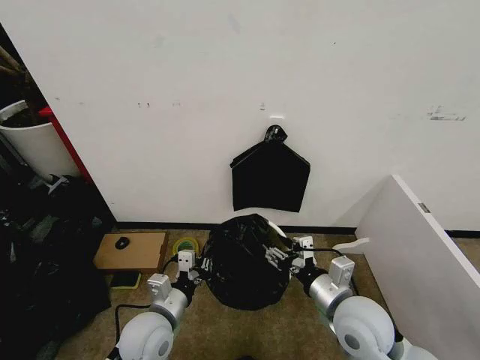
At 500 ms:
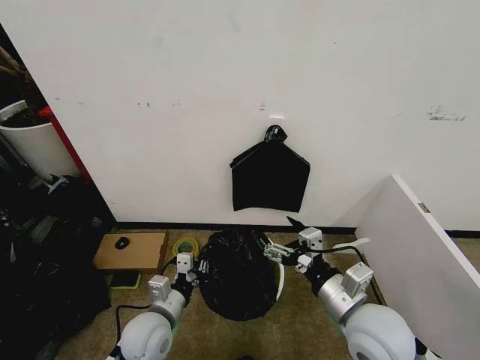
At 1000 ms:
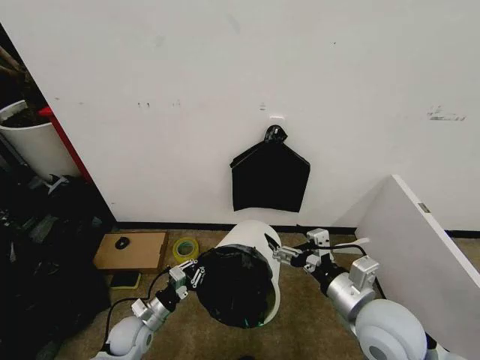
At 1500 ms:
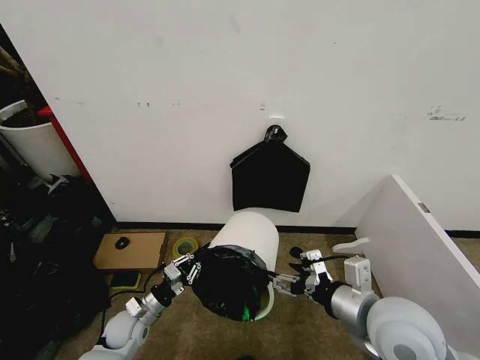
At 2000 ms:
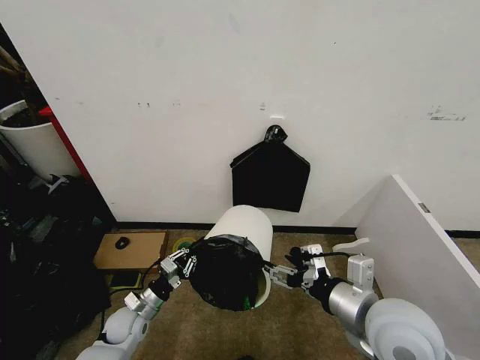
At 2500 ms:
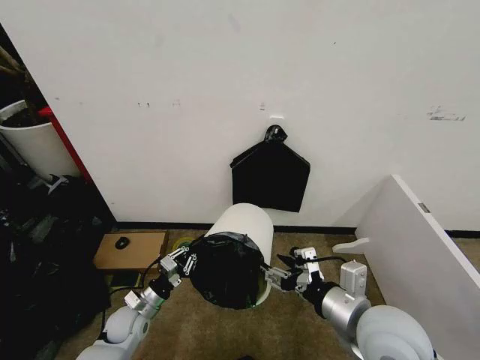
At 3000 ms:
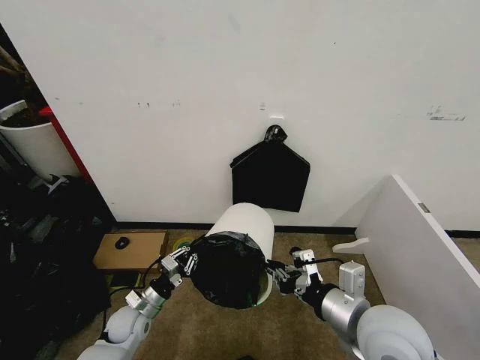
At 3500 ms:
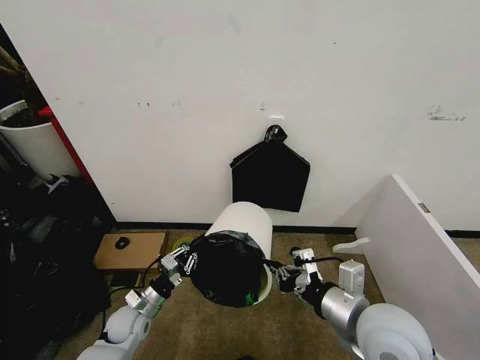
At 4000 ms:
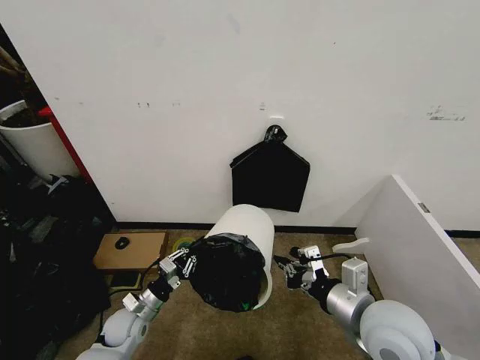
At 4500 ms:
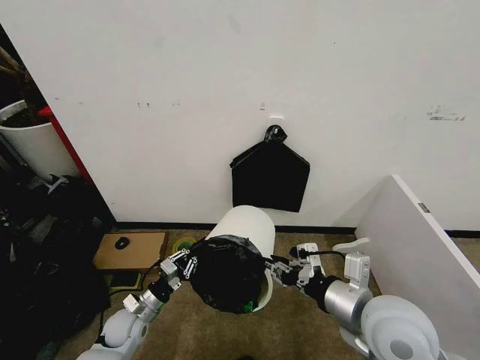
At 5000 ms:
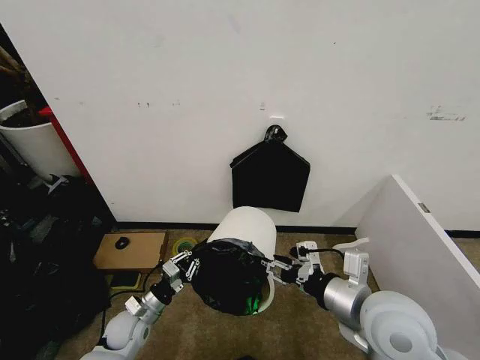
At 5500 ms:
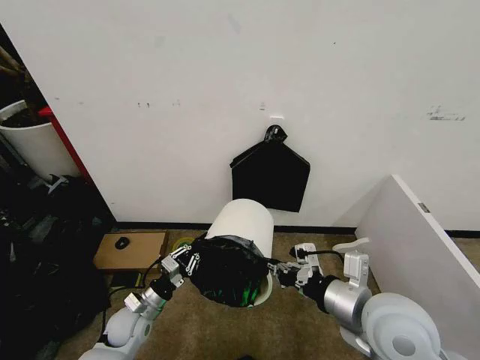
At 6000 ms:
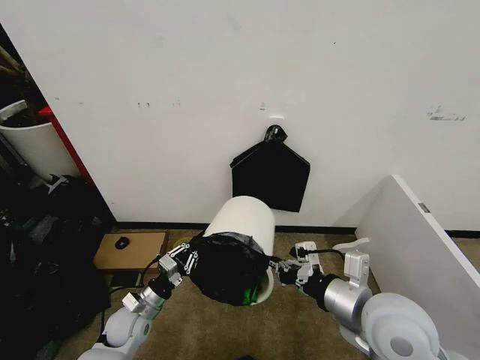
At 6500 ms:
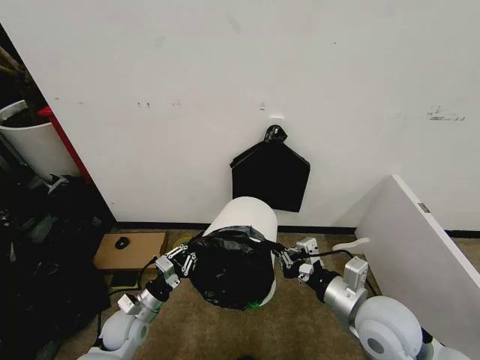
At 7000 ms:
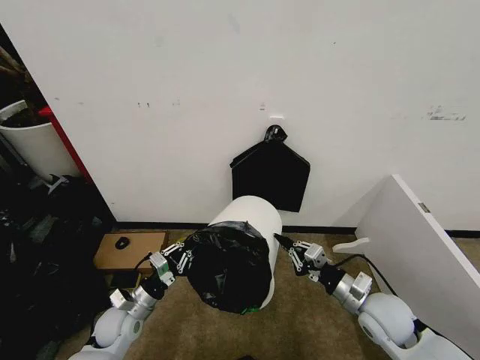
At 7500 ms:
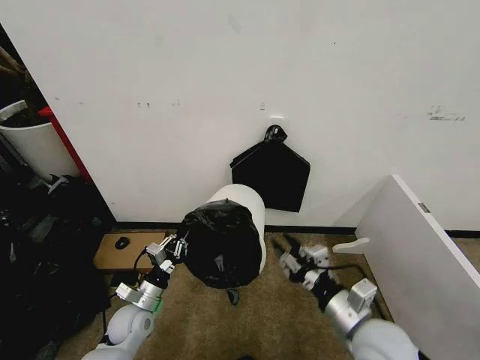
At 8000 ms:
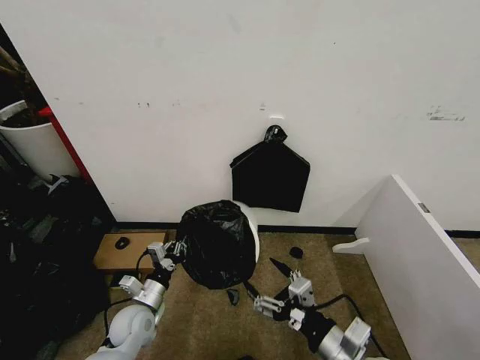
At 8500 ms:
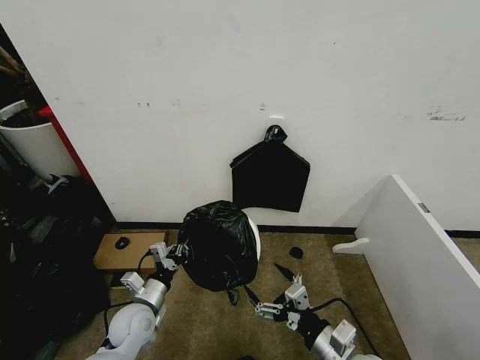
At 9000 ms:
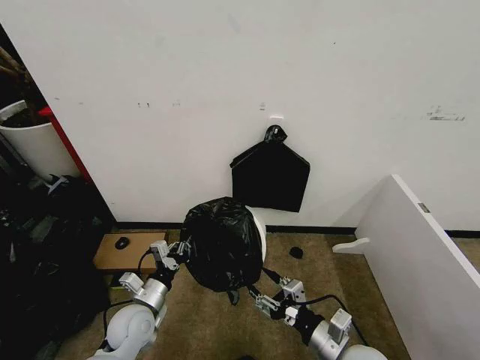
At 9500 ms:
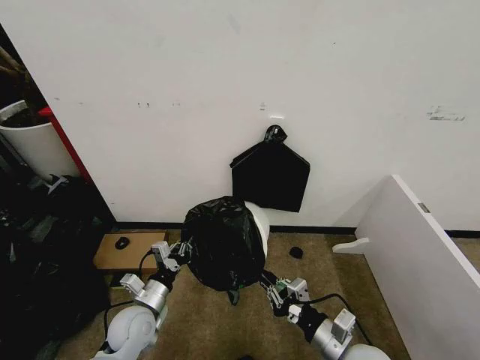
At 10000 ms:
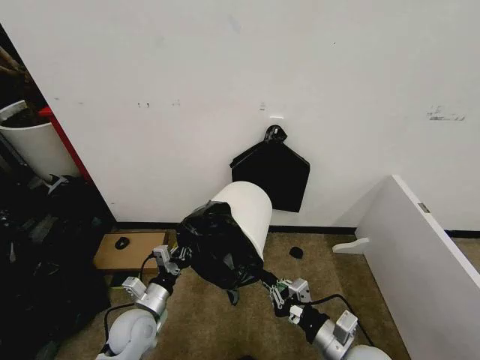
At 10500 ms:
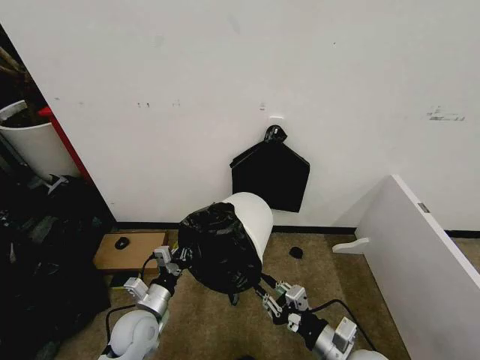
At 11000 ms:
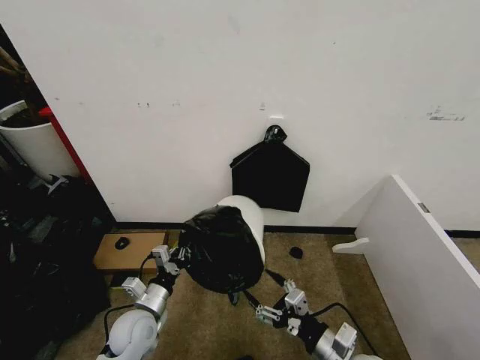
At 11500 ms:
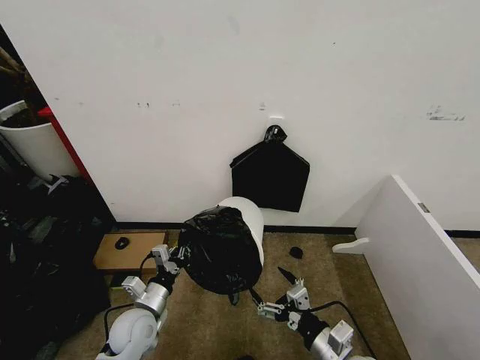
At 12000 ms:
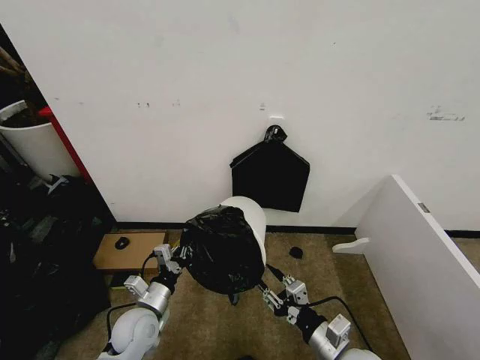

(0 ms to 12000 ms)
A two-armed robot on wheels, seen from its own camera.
Task of the whole recording: Place the garbage bag over the trash bin.
0 ms - 2000 ms: The left gripper is displaced downward, to the left and forward by some 20 cm, while the right gripper shifts approximately 10 cm upward.
2000 ms - 4000 ms: The right gripper closes its fingers.
4000 ms - 6000 ms: The right gripper opens and closes again.
6000 ms - 8000 ms: The right gripper travels backward and downward by about 10 cm, and opens.
8000 ms - 10000 ms: The right gripper travels downward by about 10 cm, and closes its fingers.
10000 ms - 12000 ms: The right gripper opens up.

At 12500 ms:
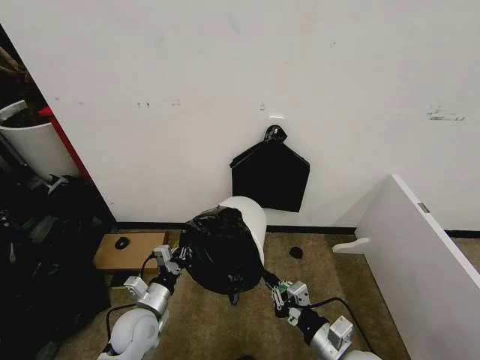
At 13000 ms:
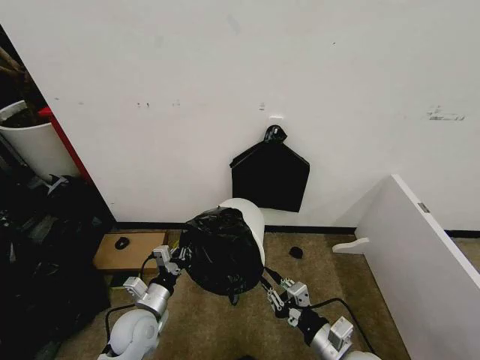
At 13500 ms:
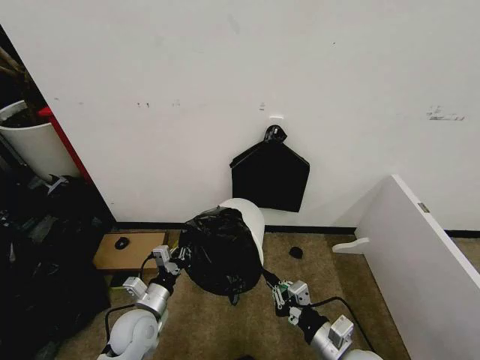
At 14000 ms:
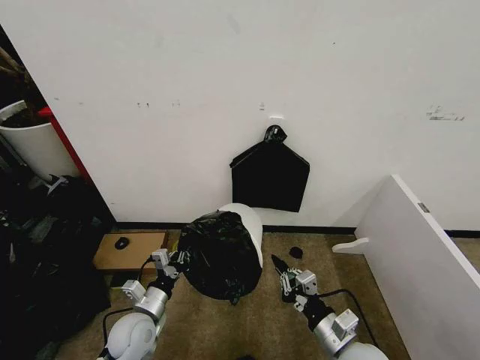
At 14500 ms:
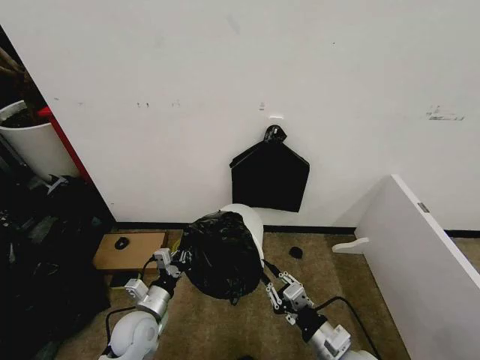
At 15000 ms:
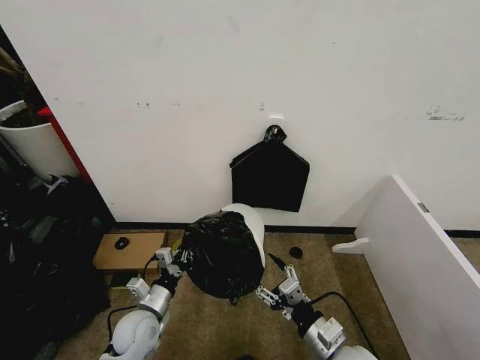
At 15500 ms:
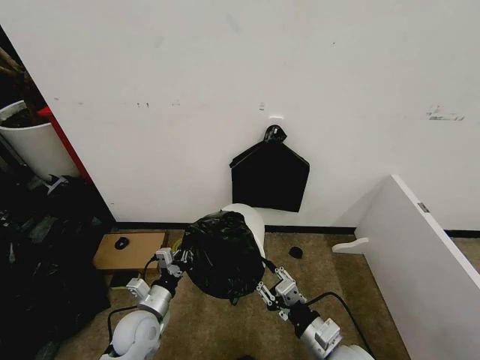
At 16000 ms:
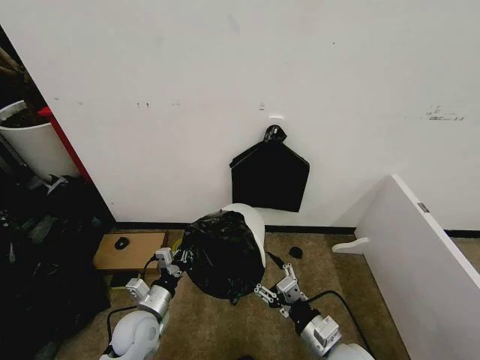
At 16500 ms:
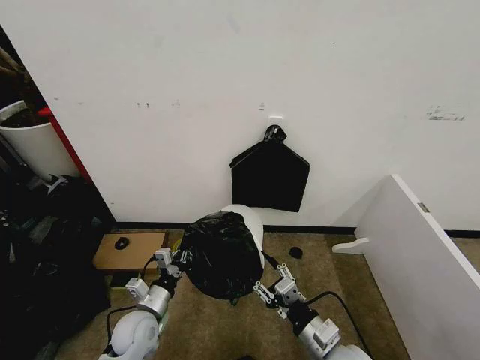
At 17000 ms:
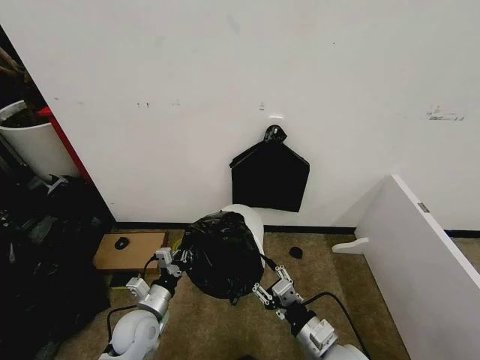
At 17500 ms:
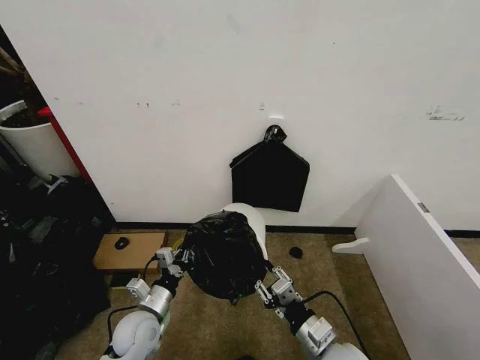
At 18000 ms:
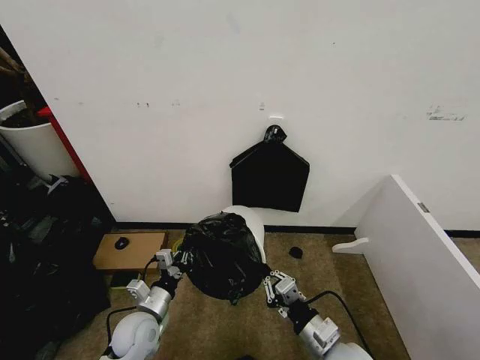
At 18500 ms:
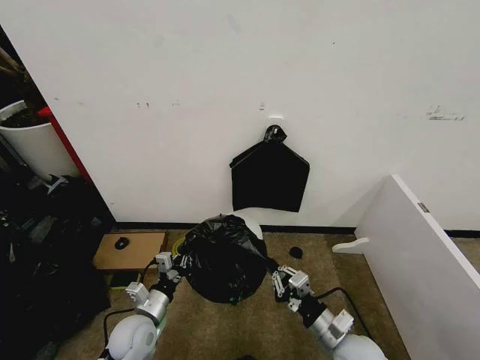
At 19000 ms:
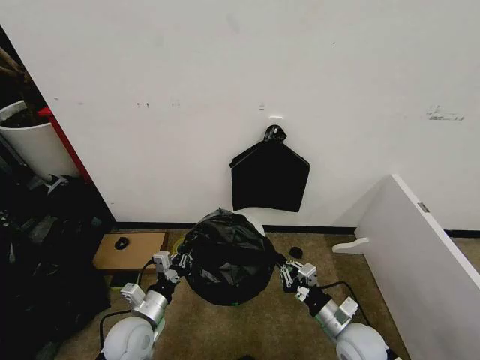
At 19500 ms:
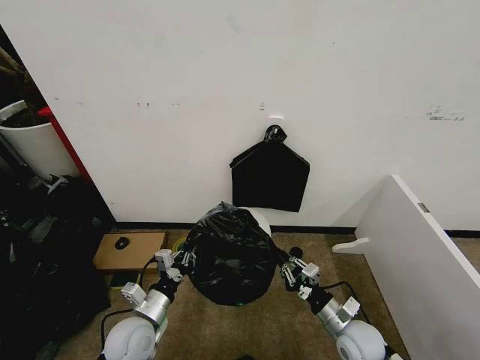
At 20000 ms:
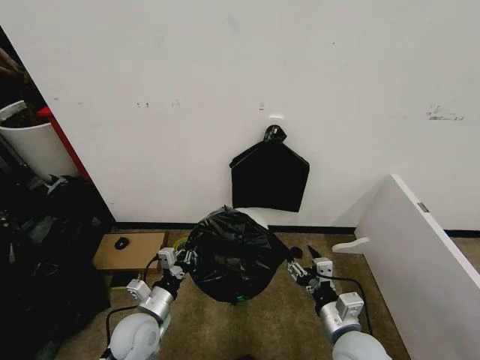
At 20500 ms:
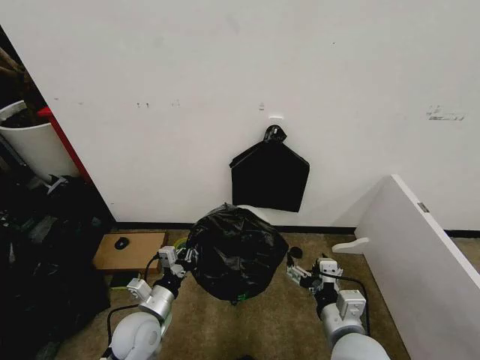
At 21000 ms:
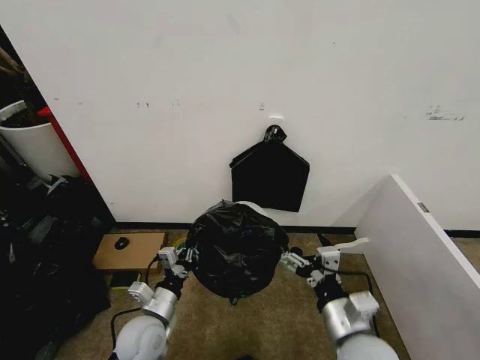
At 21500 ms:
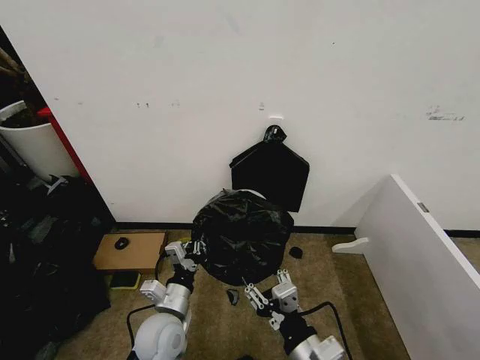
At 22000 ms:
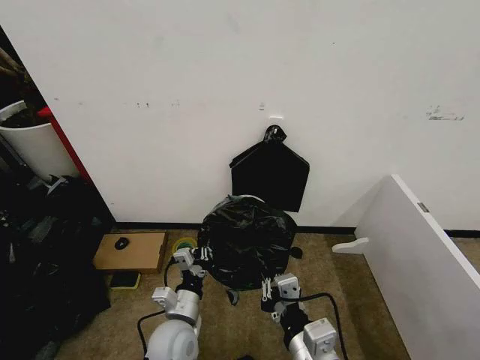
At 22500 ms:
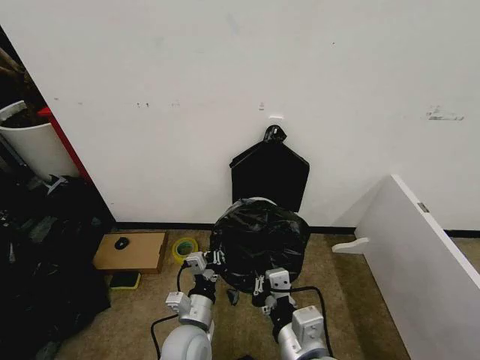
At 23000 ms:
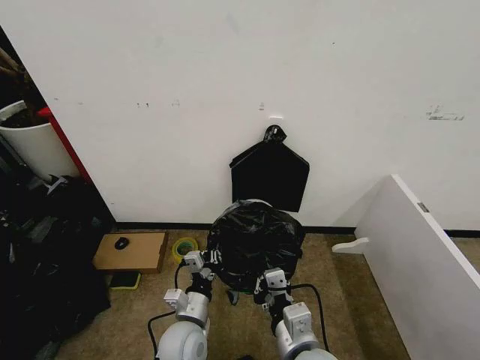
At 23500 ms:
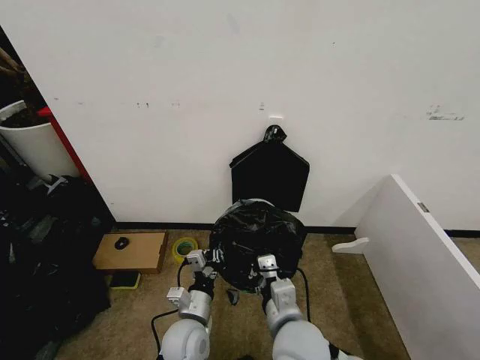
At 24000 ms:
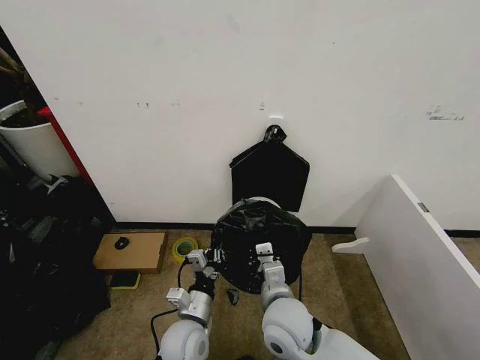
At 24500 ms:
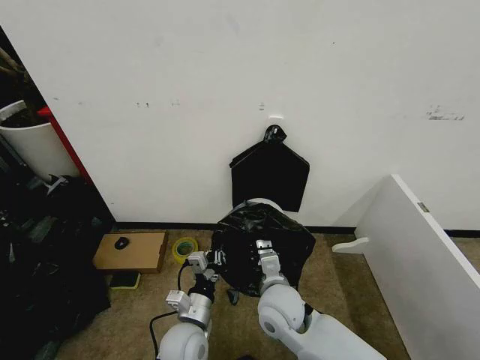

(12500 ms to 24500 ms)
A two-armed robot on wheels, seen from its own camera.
Task of the whole recording: Place the garbage bag over the trash bin.
12500 ms - 14500 ms: There are only small adjustments of the grippers.
14500 ms - 16500 ms: The right gripper opens its fingers.
16500 ms - 18500 ms: The right gripper closes its fingers.
18500 ms - 20500 ms: The right gripper is displaced upward by about 10 cm, and opens up.
20500 ms - 22500 ms: The left gripper shifts about 10 cm to the right; the right gripper moves to the left, backward and upward, some 10 cm, and closes.
22500 ms - 24500 ms: The right gripper moves forward and downward, approximately 15 cm.

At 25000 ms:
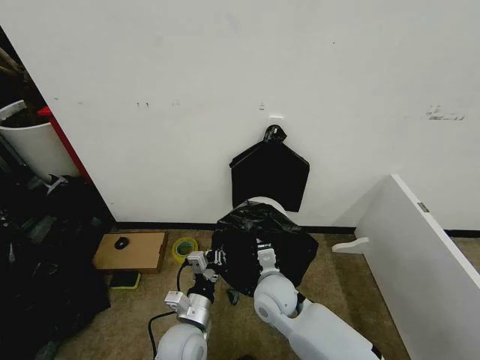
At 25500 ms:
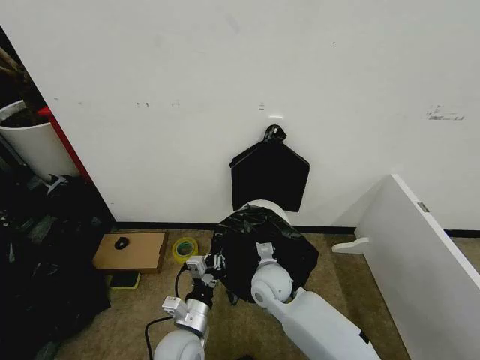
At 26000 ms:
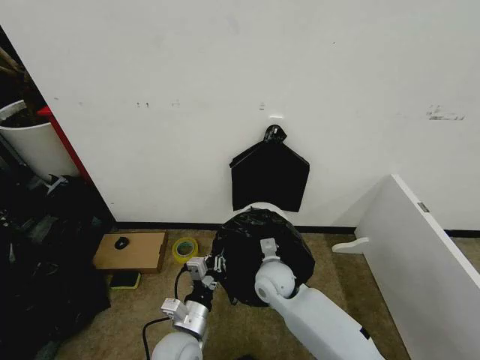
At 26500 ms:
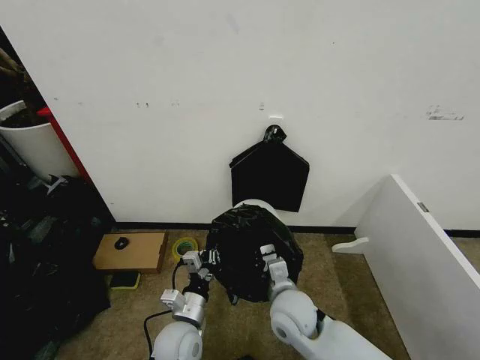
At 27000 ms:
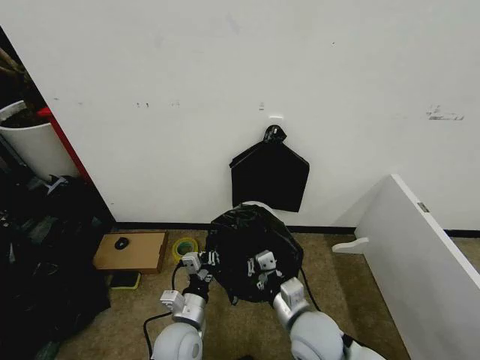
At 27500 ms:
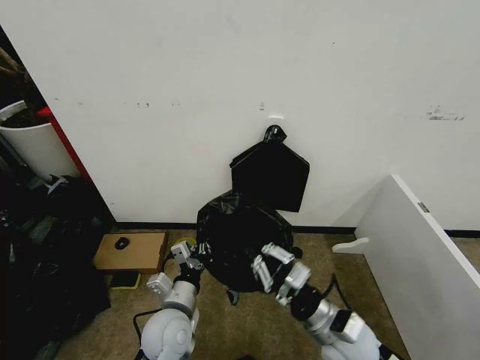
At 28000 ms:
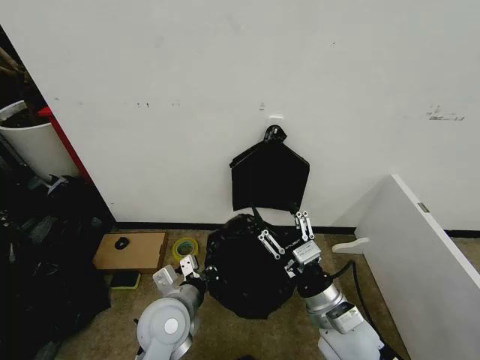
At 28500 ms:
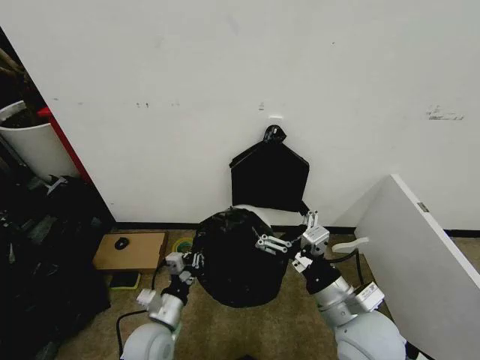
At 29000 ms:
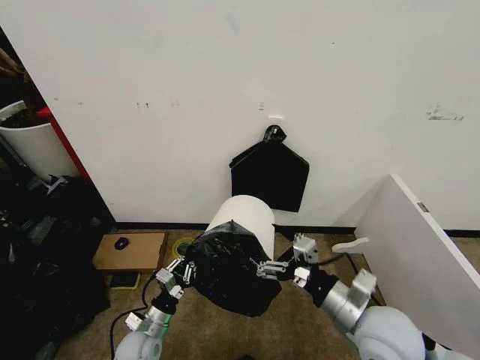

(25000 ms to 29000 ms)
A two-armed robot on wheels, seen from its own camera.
Task of the whole recording: Place the garbage bag over the trash bin.
25000 ms - 27000 ms: The right gripper heads backward and to the right, covering some 10 cm.
27000 ms - 29000 ms: The right gripper goes approximately 15 cm upward and to the right, and opens its fingers, while the left gripper moves to the left and downward, roughly 15 cm.
